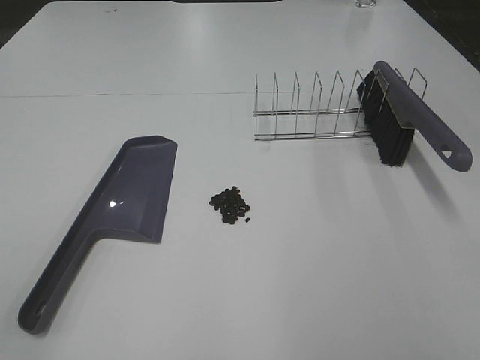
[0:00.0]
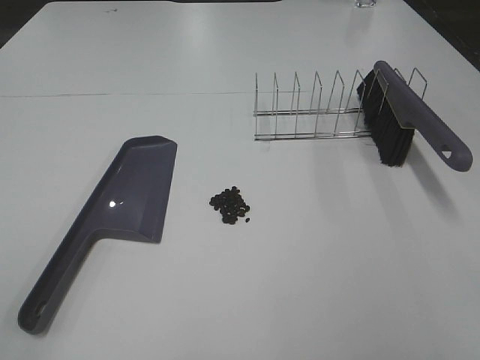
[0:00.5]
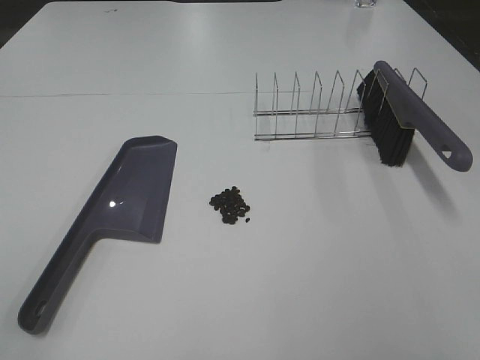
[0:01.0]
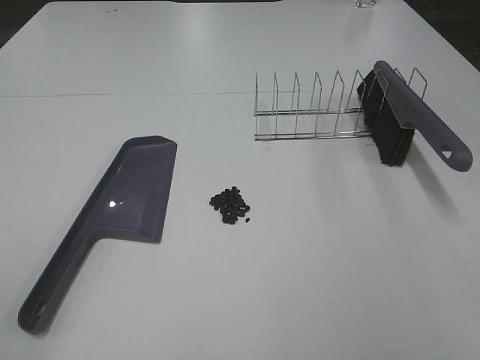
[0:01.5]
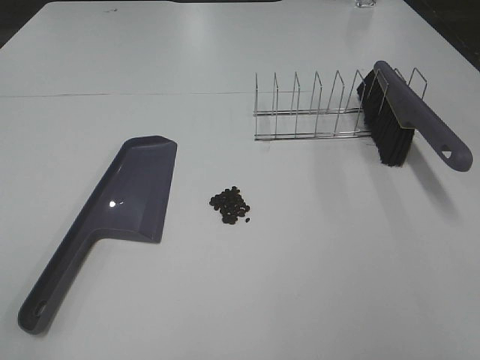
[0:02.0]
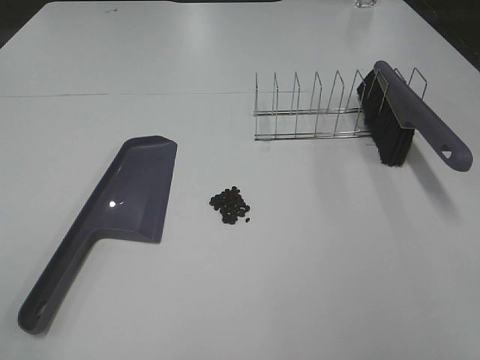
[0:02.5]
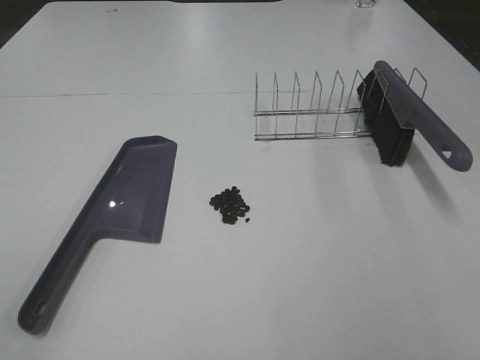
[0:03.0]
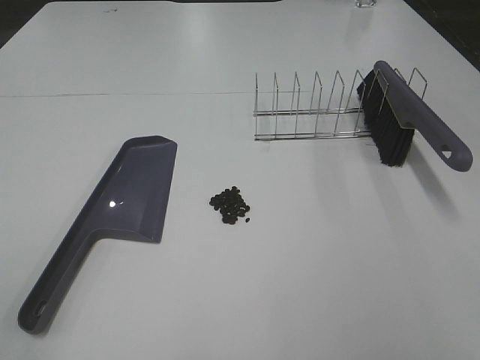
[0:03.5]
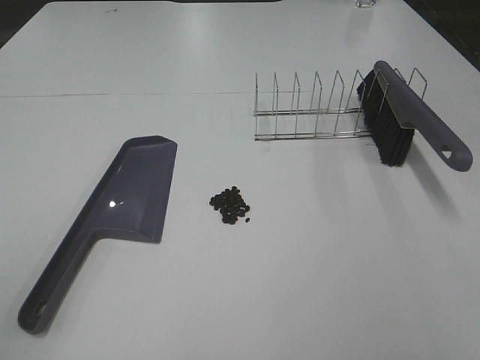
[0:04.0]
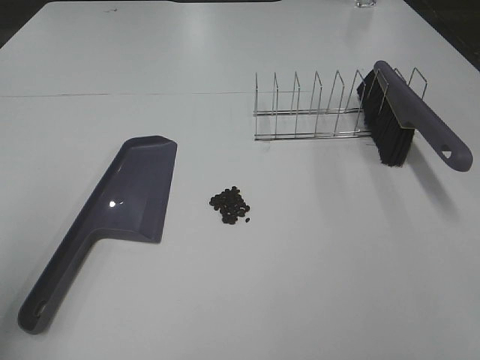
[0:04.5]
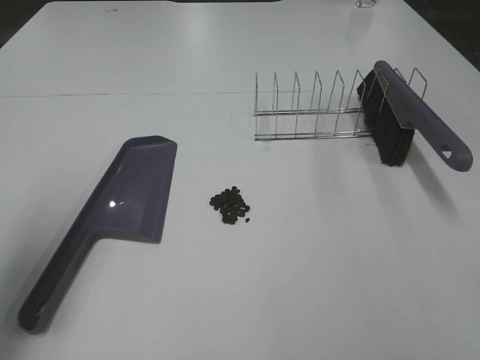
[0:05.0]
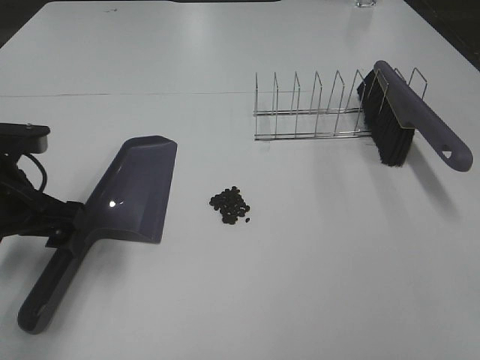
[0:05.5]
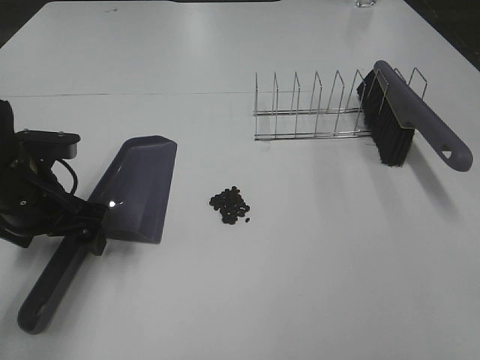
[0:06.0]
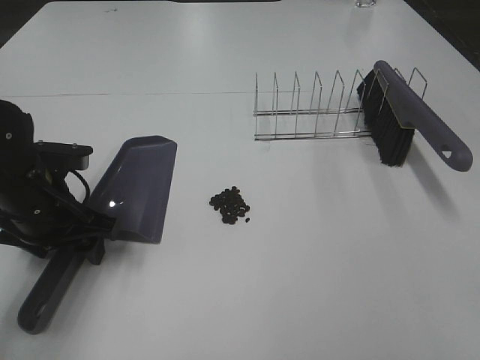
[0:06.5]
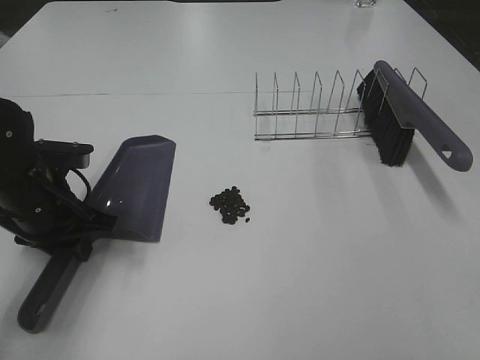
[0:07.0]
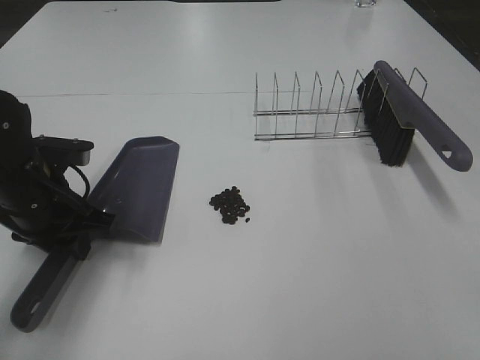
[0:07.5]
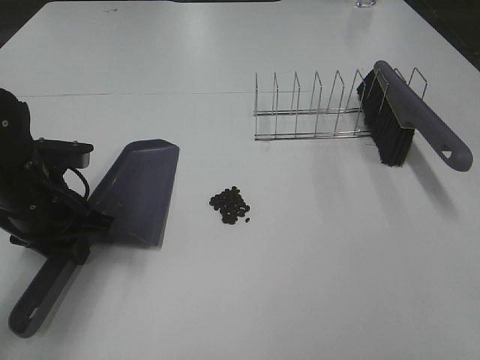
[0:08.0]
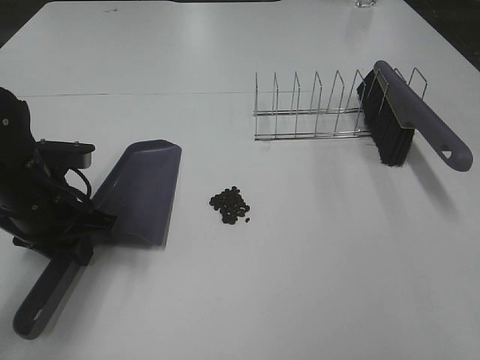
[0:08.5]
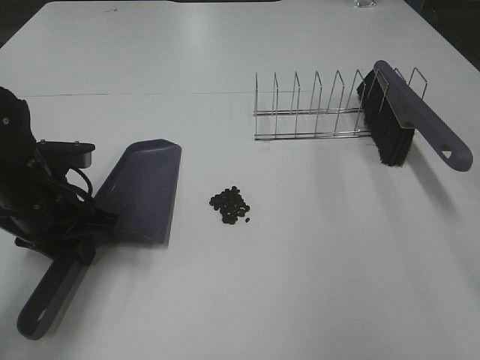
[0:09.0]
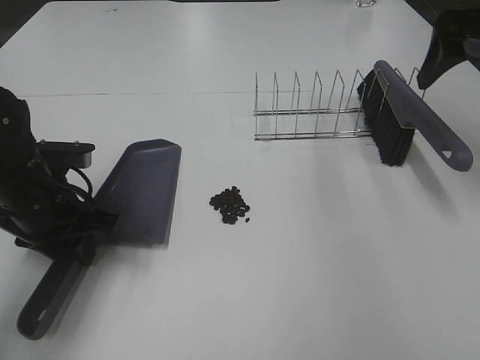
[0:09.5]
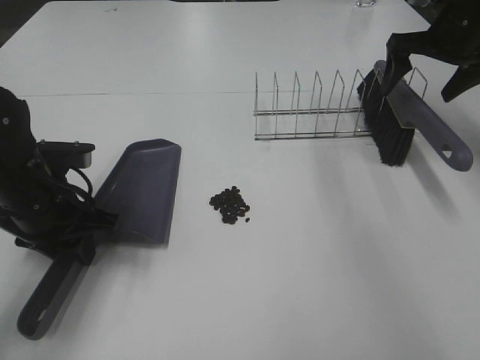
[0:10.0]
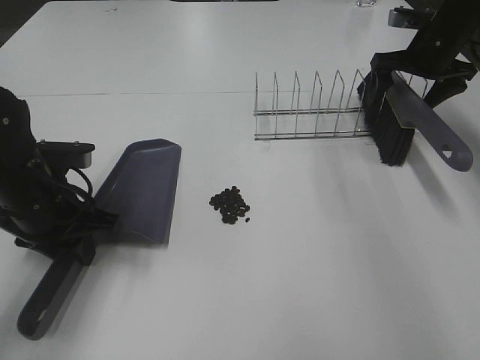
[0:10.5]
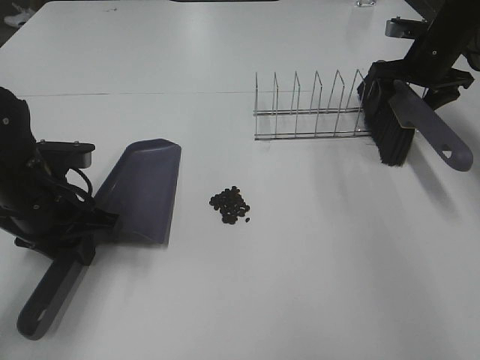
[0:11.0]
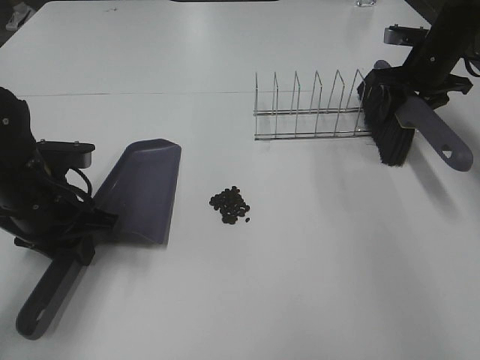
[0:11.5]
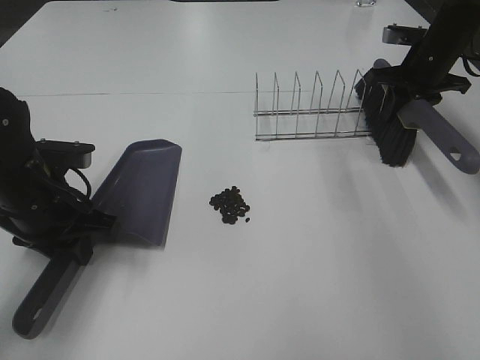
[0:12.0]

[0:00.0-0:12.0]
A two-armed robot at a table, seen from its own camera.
Task of the whole recording: Sweep Coffee Bean.
Step, 0:00.0 to 0:06.5: Left hand: grab the dustpan.
Step, 0:08.0 to 0:11.5: Right hand:grab the broom.
0:04.0 to 0:06.0: The left gripper moves forward and downward, approximately 35 cm.
0:06.0 to 0:08.0: The left gripper closes its fingers.
0:08.0 to 0:10.0: The right gripper travels forward by approximately 50 cm.
0:10.0 to 0:12.0: The right gripper heads downward, covering some 5 cm, and closes.

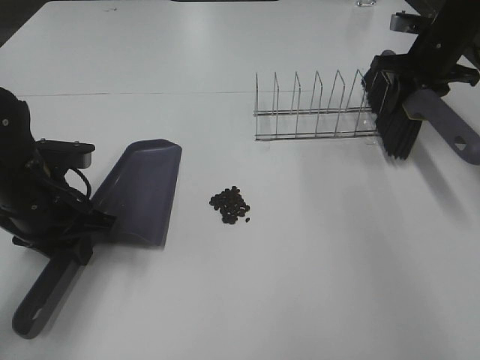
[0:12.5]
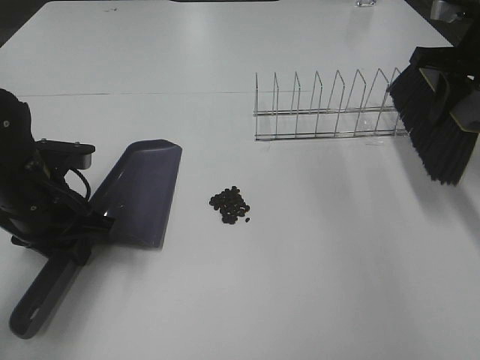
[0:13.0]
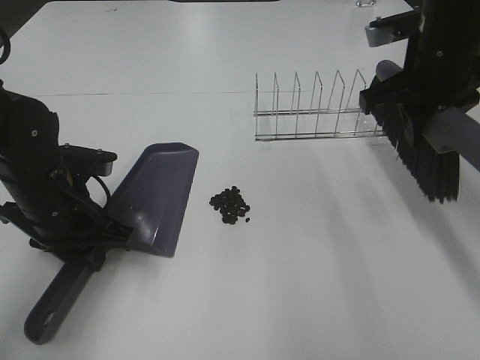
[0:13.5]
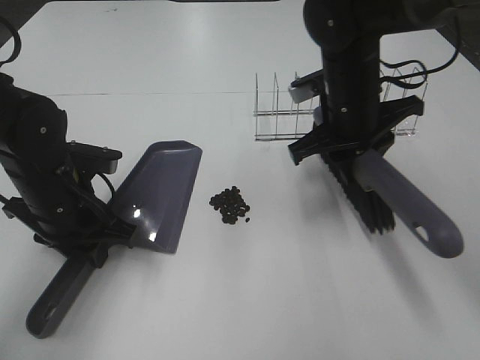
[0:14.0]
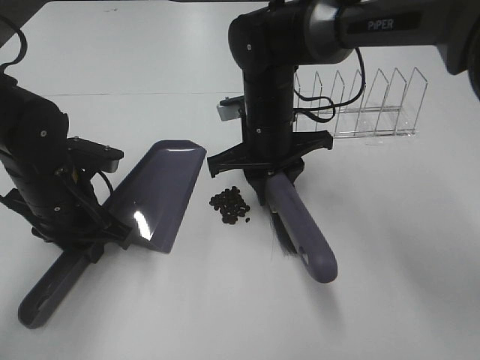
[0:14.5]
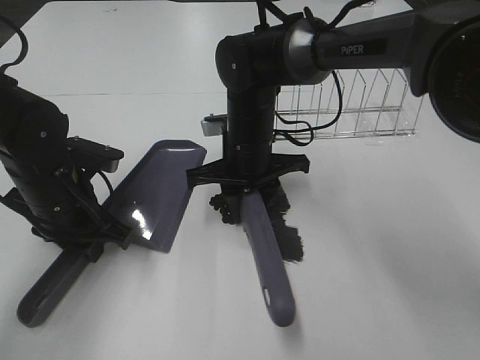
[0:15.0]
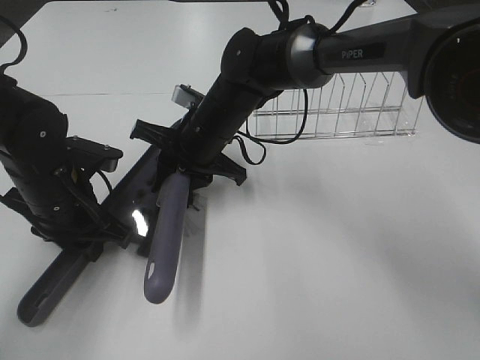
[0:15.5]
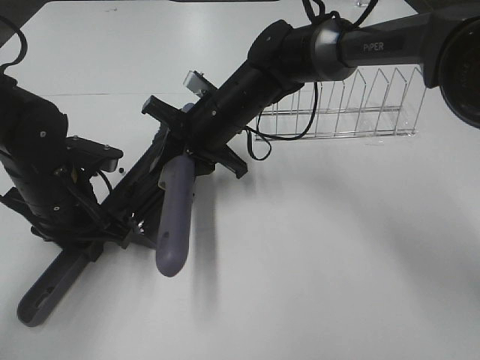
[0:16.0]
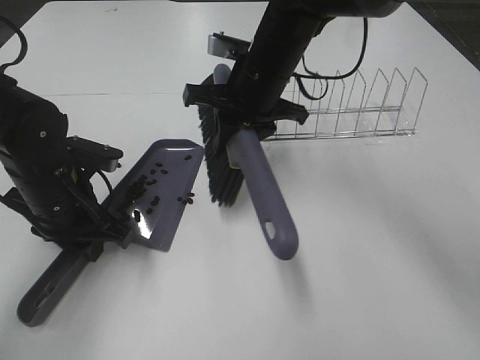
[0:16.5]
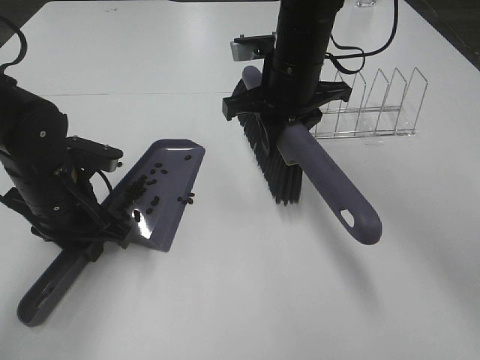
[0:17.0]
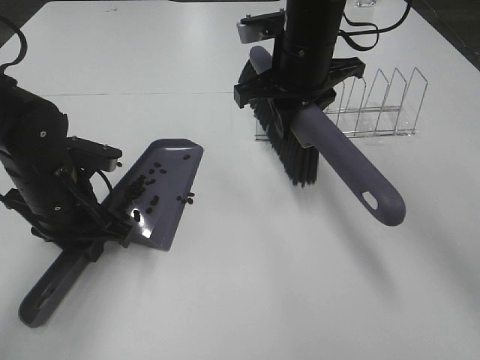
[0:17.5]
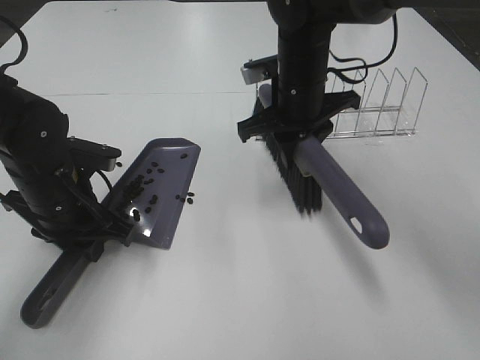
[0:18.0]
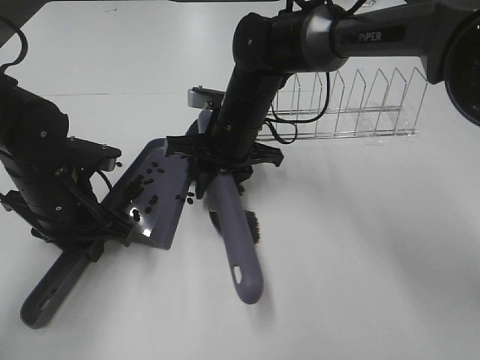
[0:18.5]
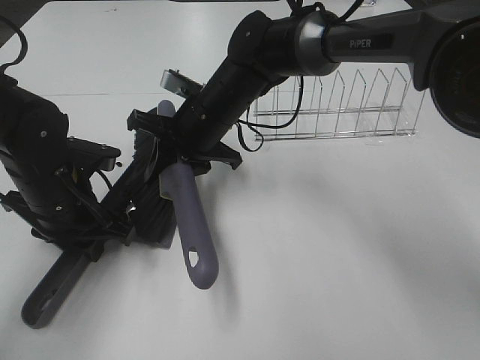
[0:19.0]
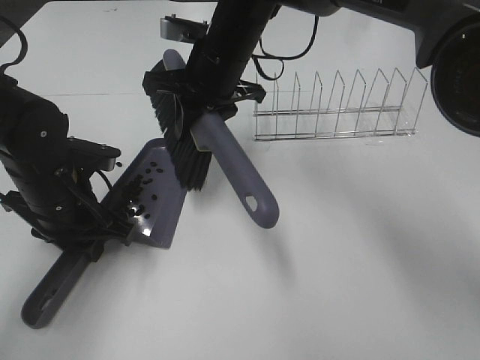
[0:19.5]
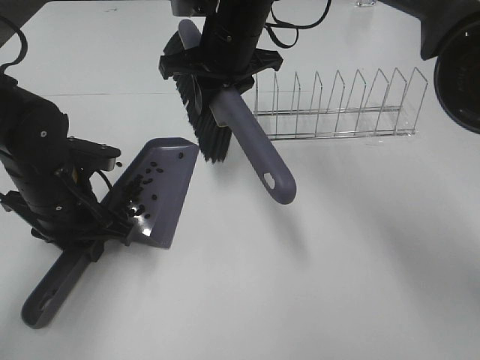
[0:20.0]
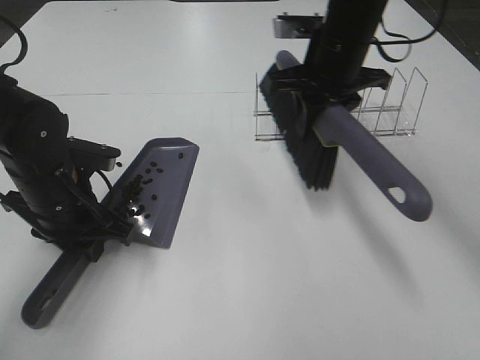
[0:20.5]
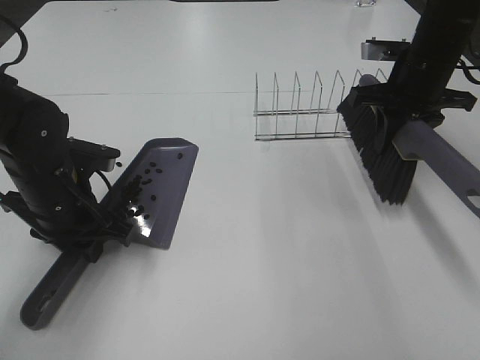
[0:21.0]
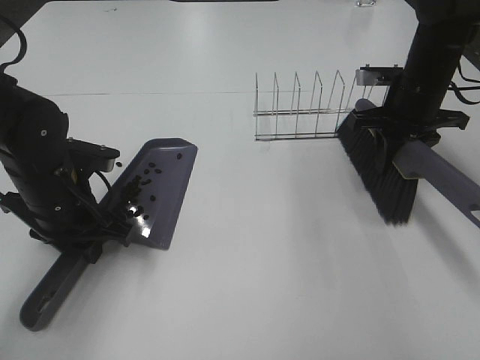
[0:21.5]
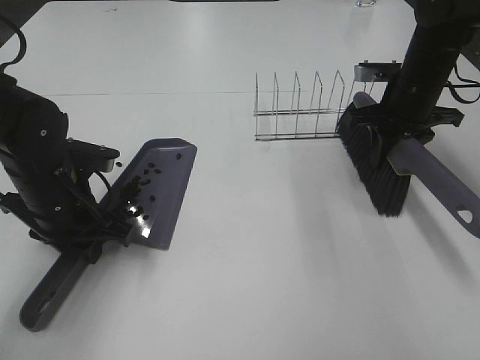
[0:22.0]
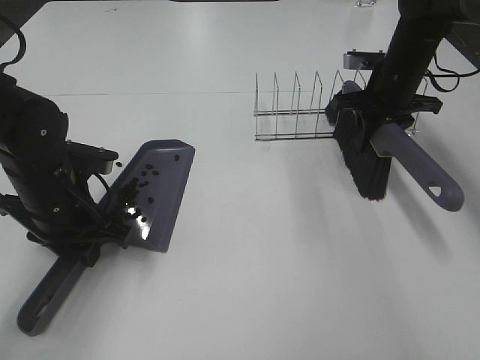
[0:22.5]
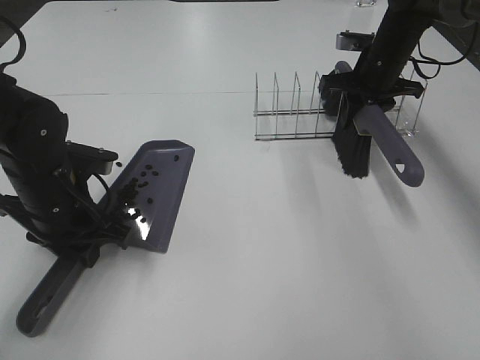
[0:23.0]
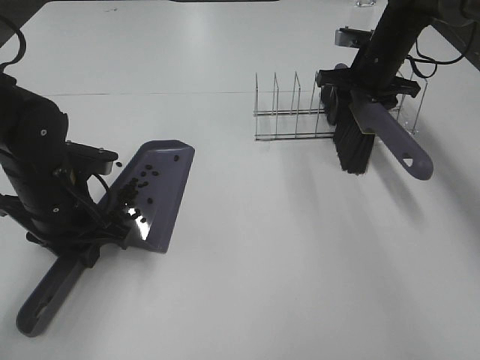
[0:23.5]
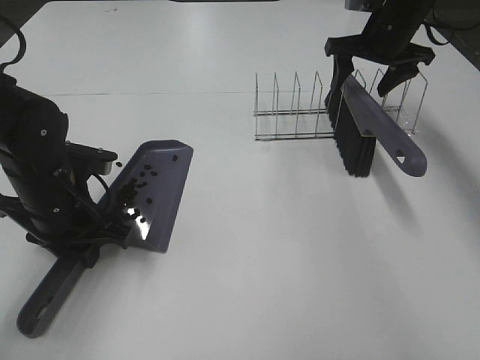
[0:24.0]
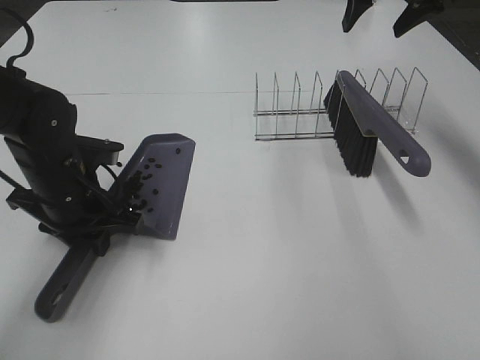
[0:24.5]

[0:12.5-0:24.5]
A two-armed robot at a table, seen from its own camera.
Task of the whole recording: Sweep Coffee Bean.
Step, 0:12.5 to 0:19.0: Right hand:sweep the coffee beans into the dustpan.
Step, 0:19.5 to 0:23.5: Right hand:place the broom on the rack.
0:12.5 to 0:14.5: The right gripper moves to the left and backward, some 30 cm.
0:14.5 to 0:16.5: The right gripper heads upward, covering about 5 cm.
0:16.5 to 0:18.5: The right gripper is displaced downward by some 5 cm.
0:18.5 to 0:20.5: The right gripper travels to the right and upward by roughly 15 cm.
0:20.5 to 0:22.5: The right gripper heads to the right, downward and forward, covering approximately 15 cm.
0:22.5 to 0:24.5: The right gripper heads upward, covering roughly 15 cm, and opens.

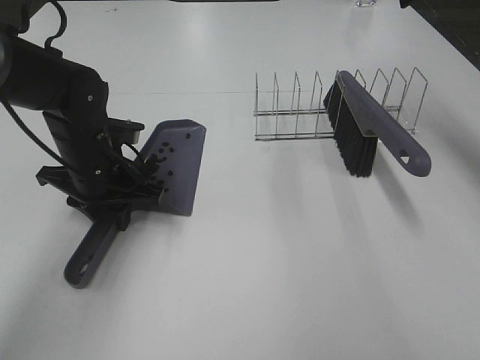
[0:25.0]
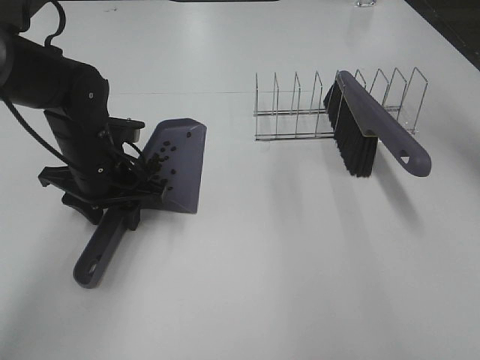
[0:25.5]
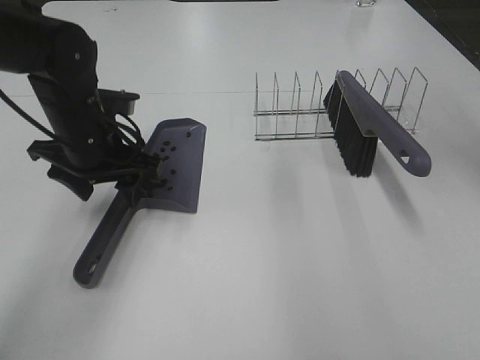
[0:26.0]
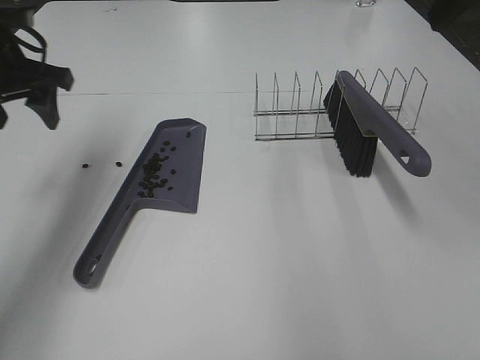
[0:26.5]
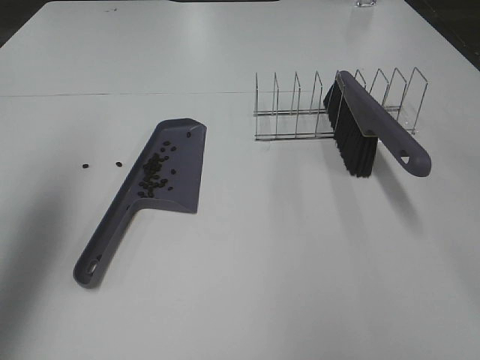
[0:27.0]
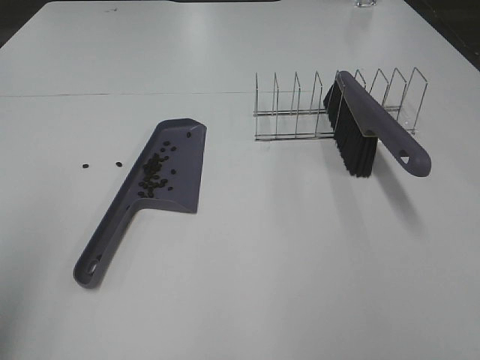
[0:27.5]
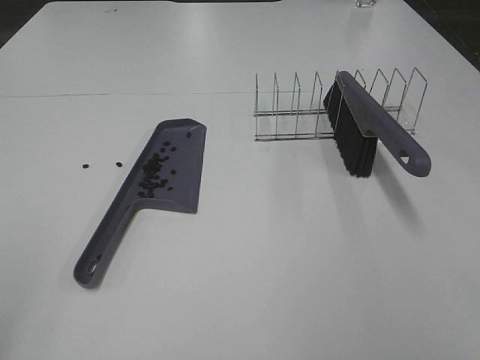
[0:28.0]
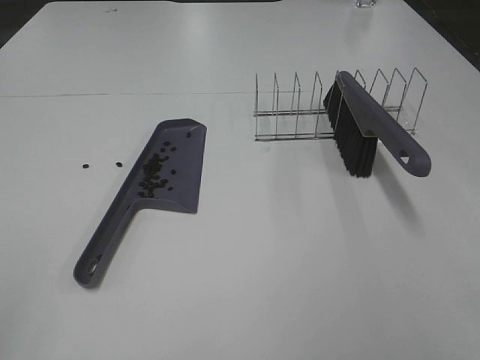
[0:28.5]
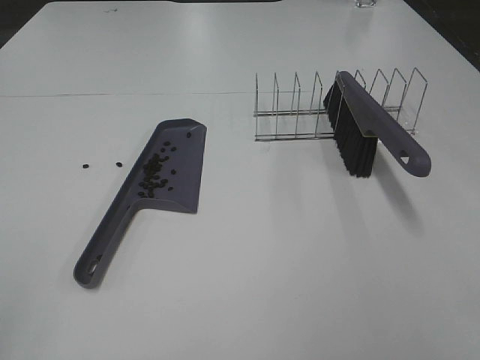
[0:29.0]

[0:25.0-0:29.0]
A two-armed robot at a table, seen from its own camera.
Task of the whole recording: Sweep Coffee Bean.
0:25.0 to 0:27.0: The right gripper is displaced backward by about 30 cm. Meanwhile the left gripper shifts some 25 cm upward and to the left, and opens.
0:27.0 to 0:29.0: The left gripper shifts some 30 cm backward.
